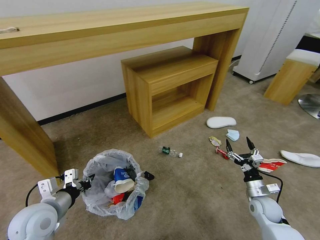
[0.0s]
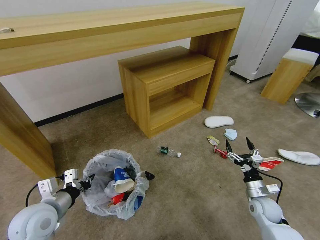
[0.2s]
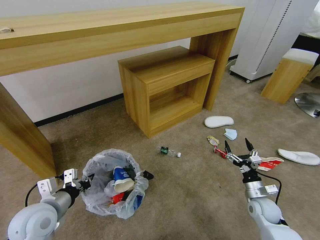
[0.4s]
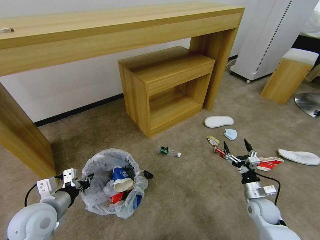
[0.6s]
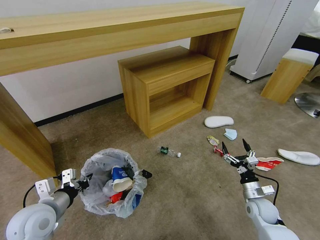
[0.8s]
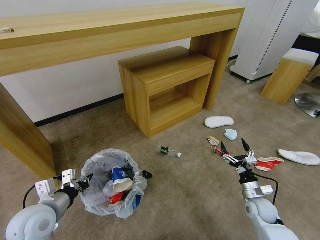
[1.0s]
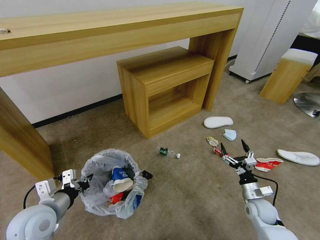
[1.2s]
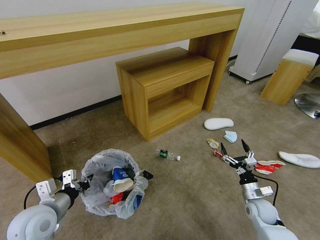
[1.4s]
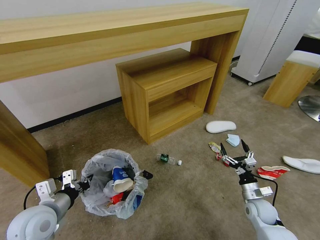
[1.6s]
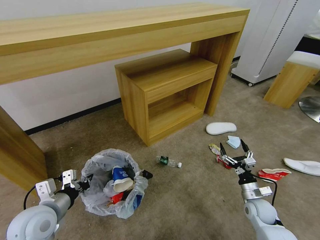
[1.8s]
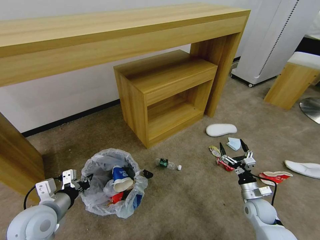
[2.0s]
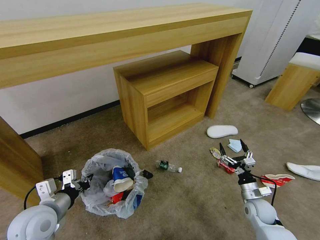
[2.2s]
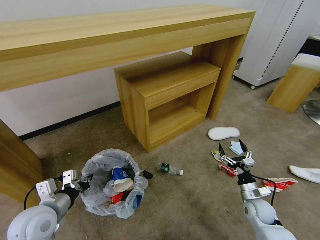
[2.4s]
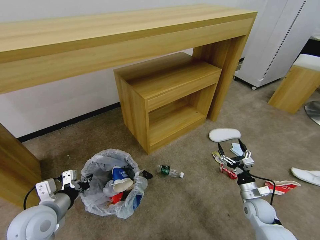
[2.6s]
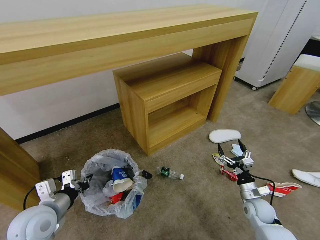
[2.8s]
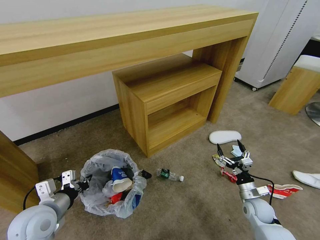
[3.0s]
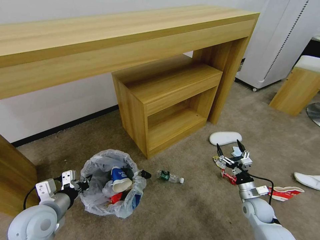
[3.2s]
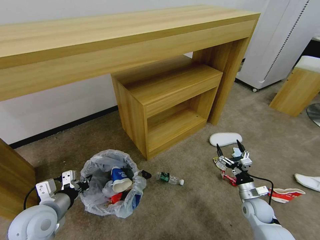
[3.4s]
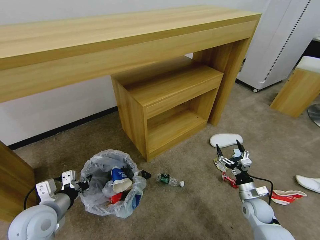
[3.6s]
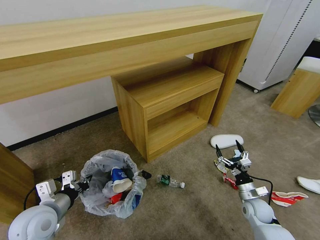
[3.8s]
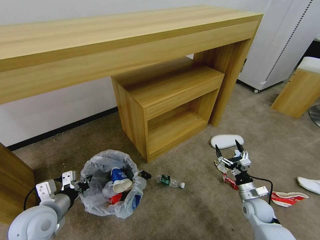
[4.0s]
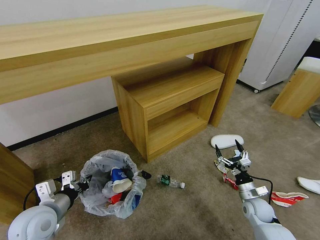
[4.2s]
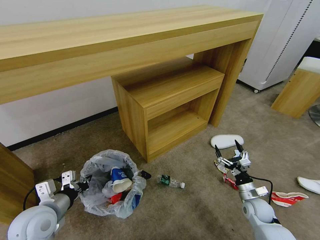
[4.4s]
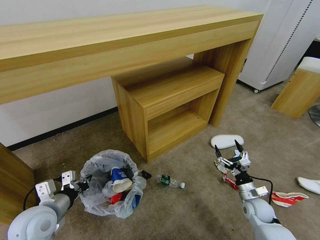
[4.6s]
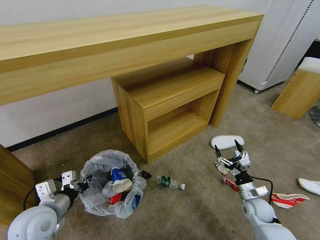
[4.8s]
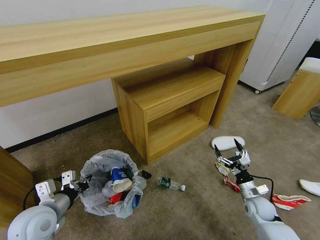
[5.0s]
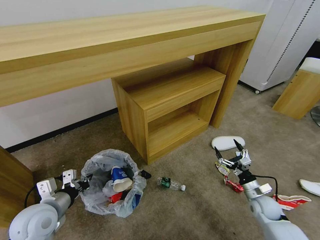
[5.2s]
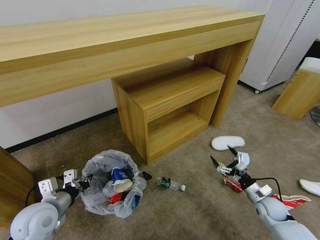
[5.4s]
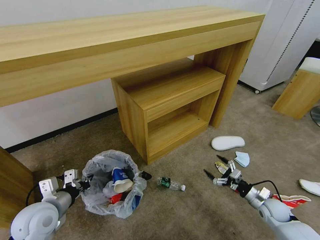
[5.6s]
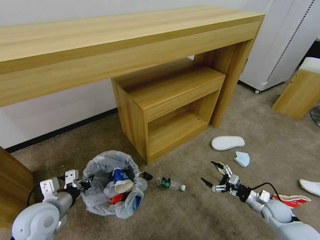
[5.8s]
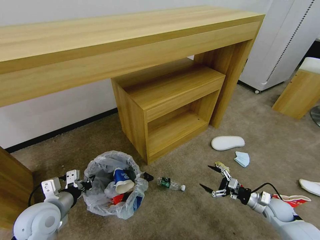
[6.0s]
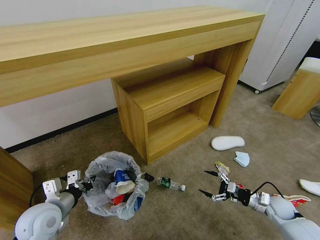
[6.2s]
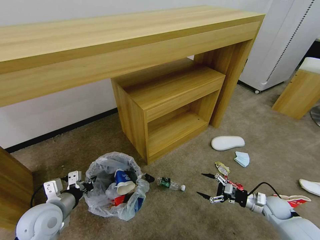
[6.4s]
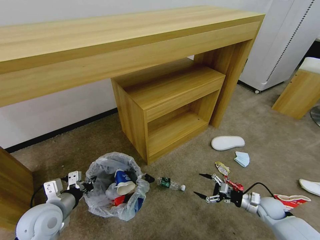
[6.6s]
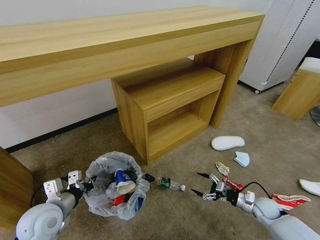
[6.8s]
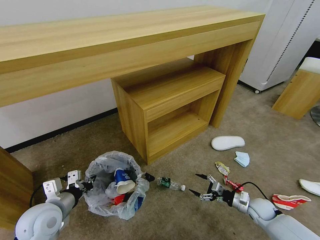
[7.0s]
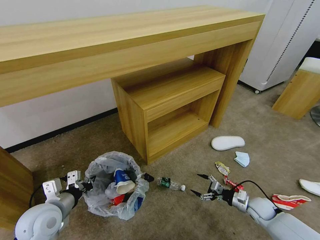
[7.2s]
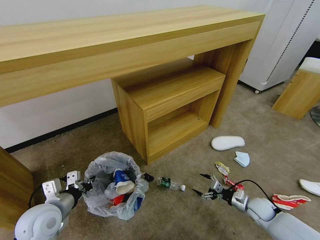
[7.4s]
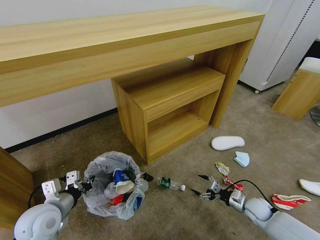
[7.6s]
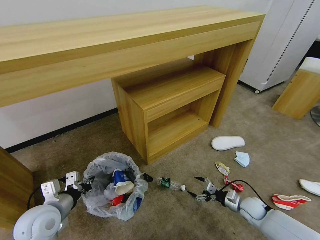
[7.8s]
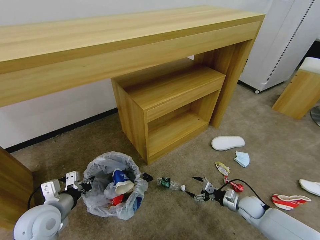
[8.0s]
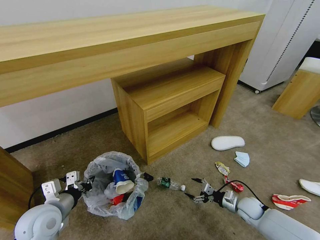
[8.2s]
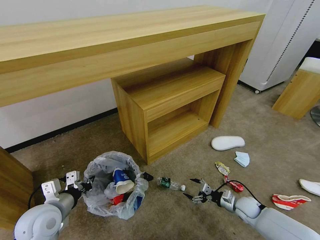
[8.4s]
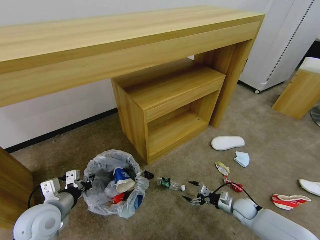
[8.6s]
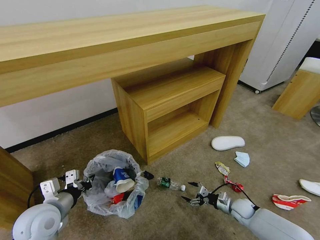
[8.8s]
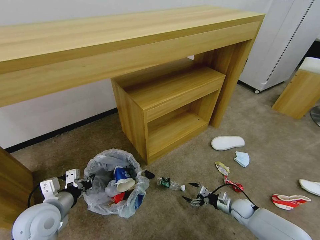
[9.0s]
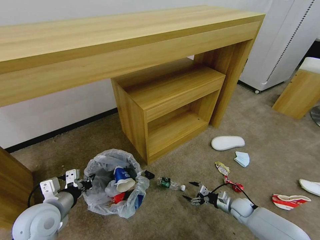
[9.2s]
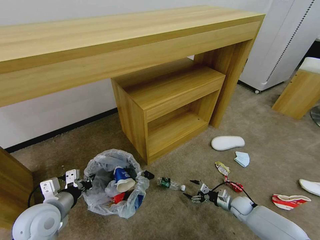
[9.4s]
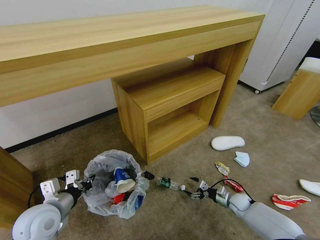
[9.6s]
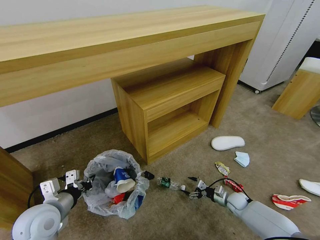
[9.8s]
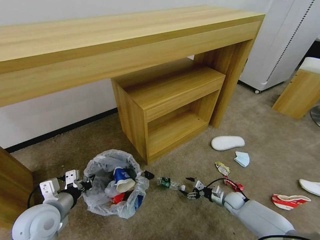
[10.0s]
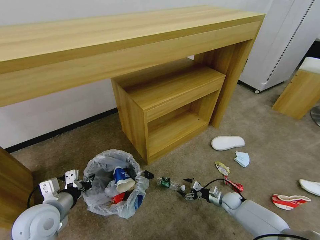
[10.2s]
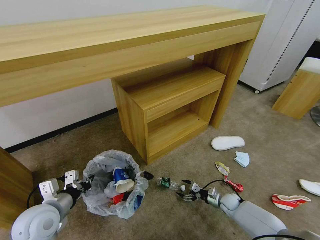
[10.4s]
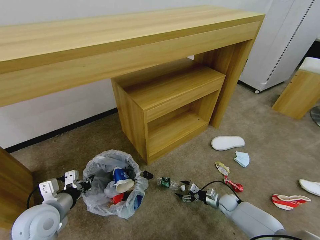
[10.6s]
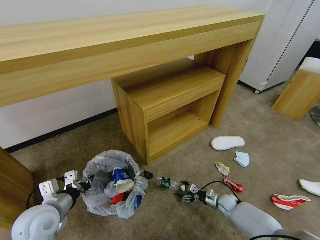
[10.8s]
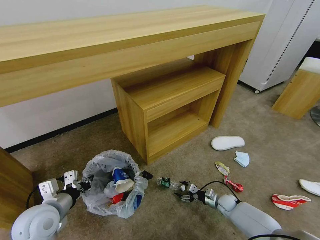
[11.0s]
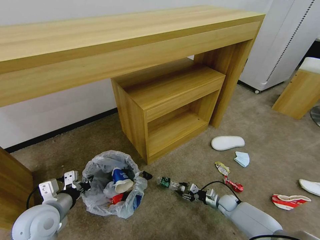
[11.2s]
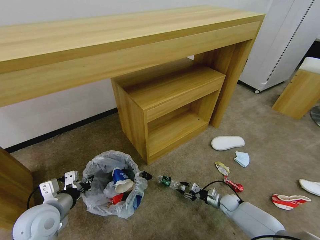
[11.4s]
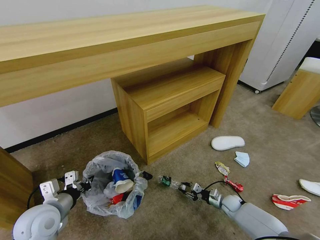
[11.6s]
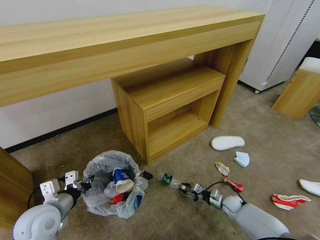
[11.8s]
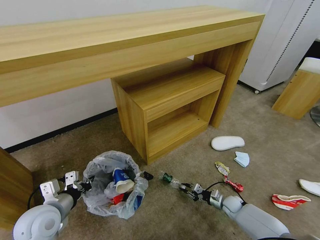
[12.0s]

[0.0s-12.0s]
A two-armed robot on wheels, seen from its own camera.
Task of the whole recording: Pick up the trash bin and place the garbage on the floor into it.
0.0s to 1.6s: There are only small adjustments of the grippers.
3.0s to 4.4s: Both grippers stay put.
4.4s to 6.0s: The right gripper heads to the right, covering about 5 cm.
6.0s to 7.6s: The right gripper shifts approximately 5 cm to the left.
7.6s to 9.0s: The right gripper is displaced downward by approximately 5 cm.
9.0s to 10.4s: The right gripper ends up roughly 5 cm from where it was.
10.4s to 12.0s: The right gripper closes its fingers.

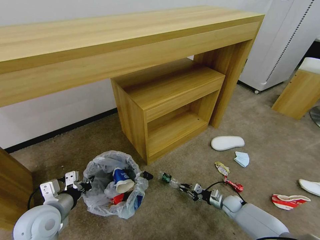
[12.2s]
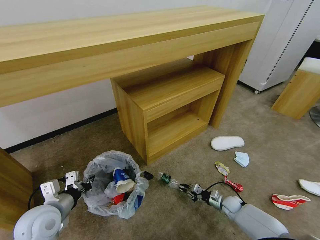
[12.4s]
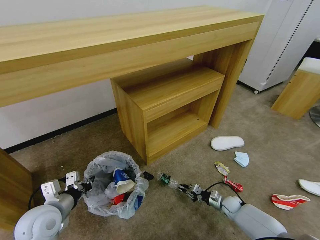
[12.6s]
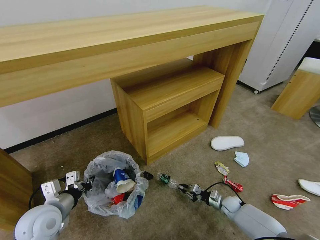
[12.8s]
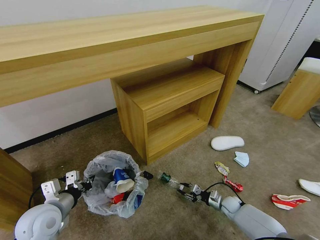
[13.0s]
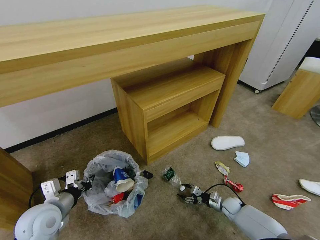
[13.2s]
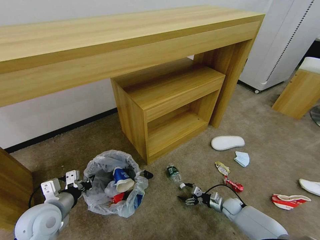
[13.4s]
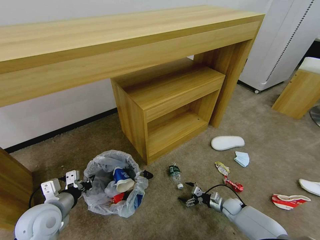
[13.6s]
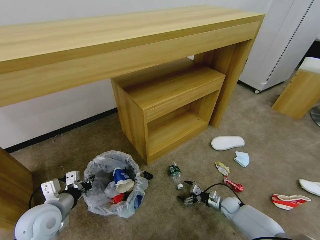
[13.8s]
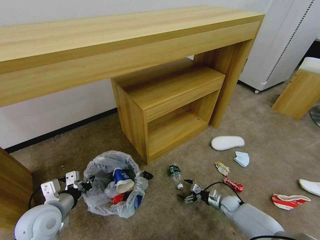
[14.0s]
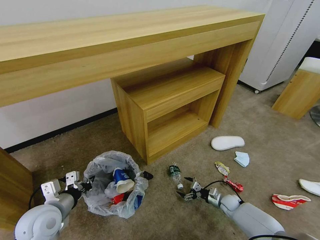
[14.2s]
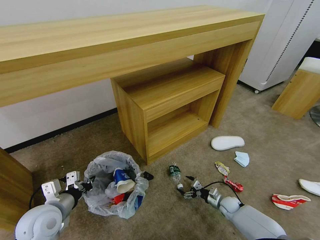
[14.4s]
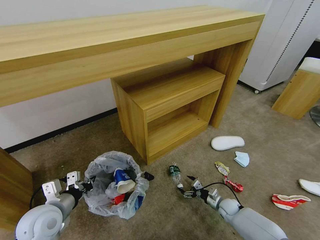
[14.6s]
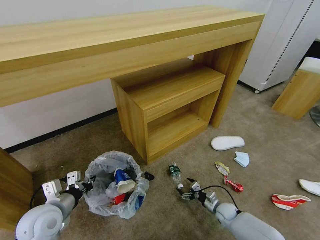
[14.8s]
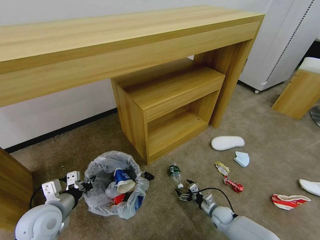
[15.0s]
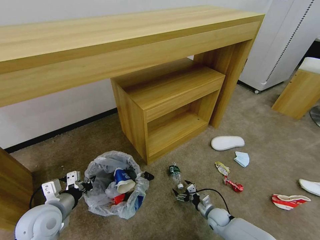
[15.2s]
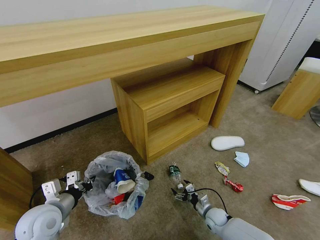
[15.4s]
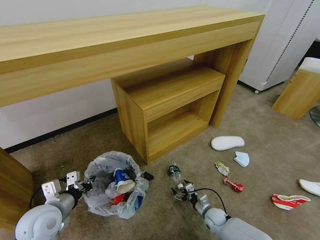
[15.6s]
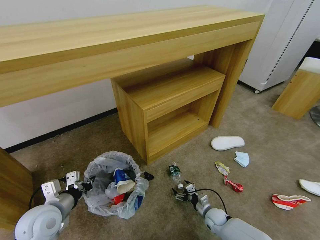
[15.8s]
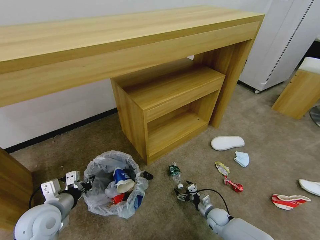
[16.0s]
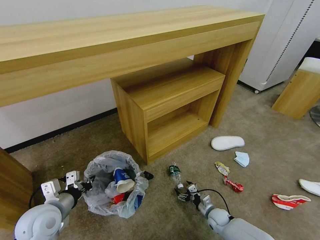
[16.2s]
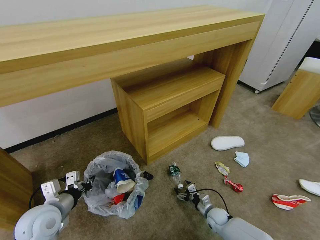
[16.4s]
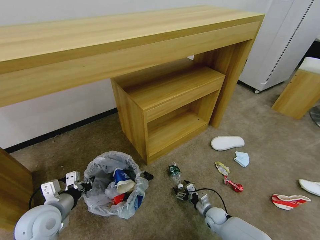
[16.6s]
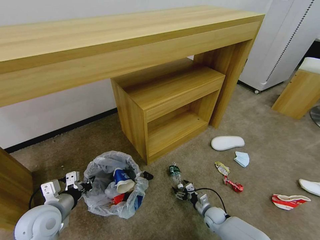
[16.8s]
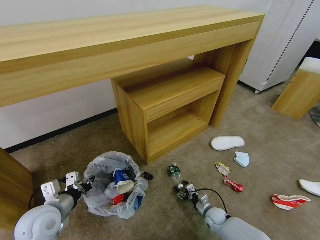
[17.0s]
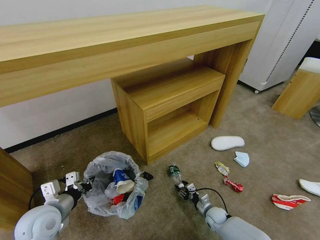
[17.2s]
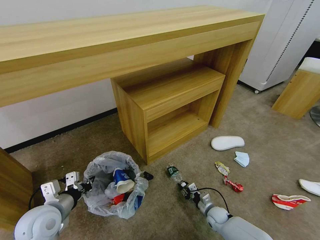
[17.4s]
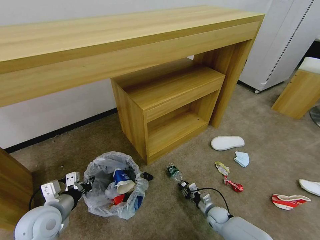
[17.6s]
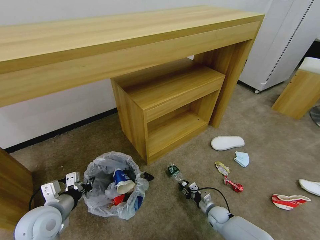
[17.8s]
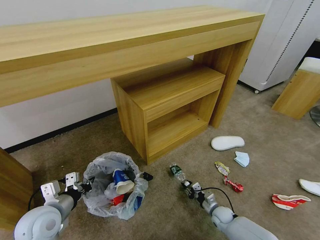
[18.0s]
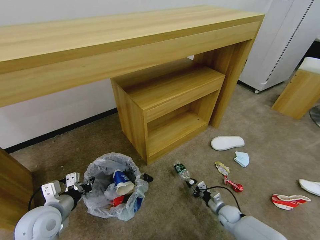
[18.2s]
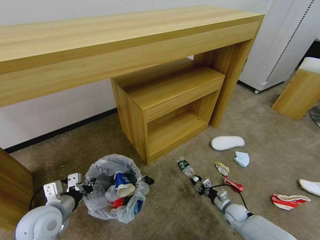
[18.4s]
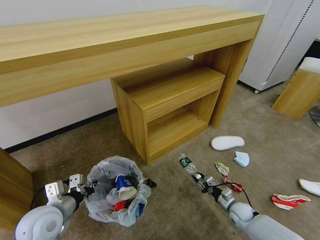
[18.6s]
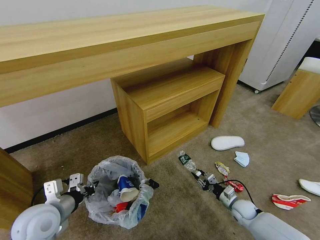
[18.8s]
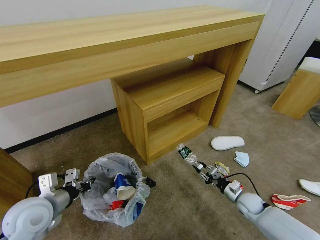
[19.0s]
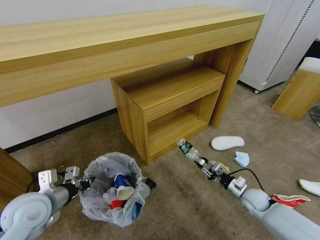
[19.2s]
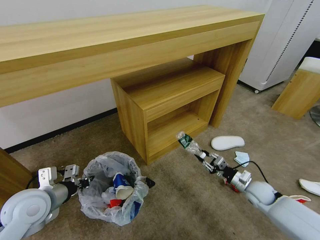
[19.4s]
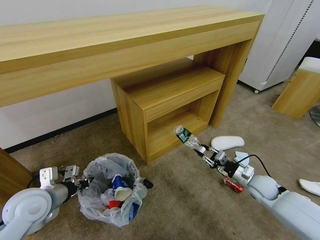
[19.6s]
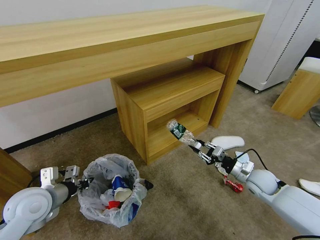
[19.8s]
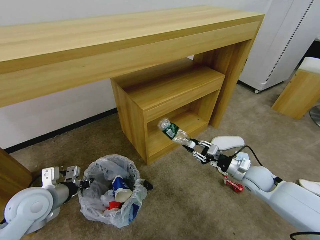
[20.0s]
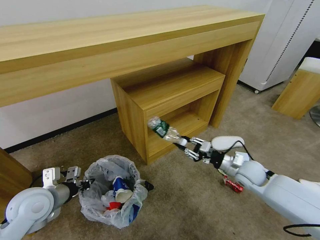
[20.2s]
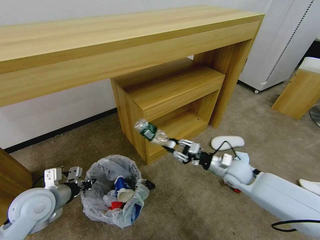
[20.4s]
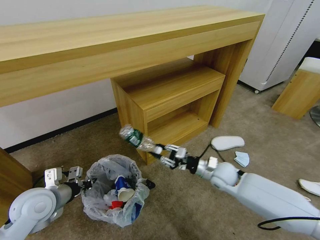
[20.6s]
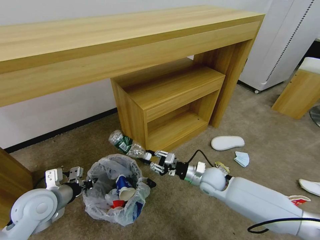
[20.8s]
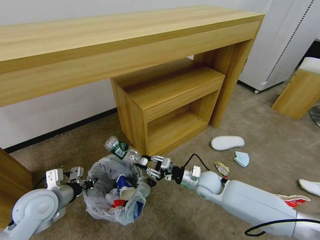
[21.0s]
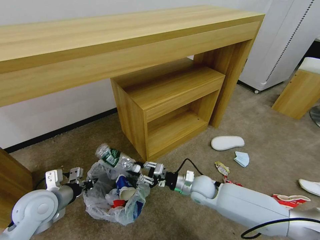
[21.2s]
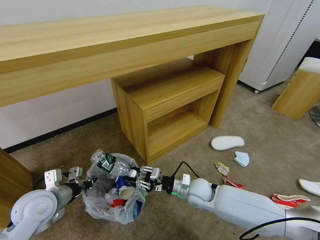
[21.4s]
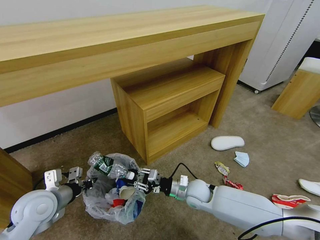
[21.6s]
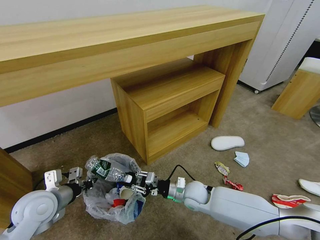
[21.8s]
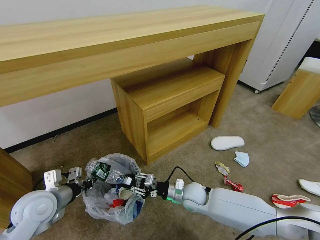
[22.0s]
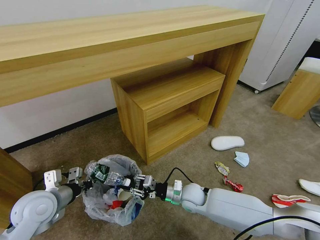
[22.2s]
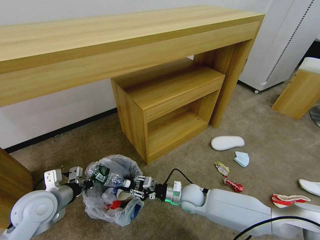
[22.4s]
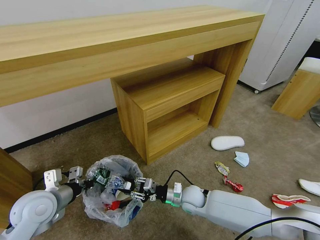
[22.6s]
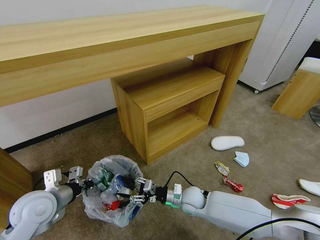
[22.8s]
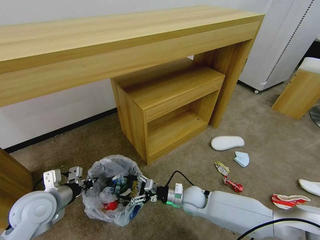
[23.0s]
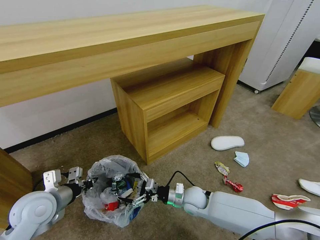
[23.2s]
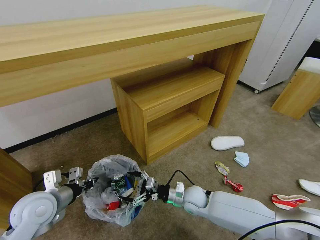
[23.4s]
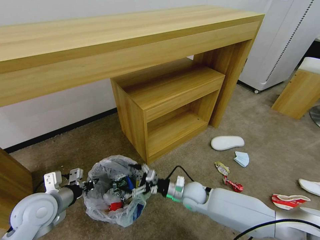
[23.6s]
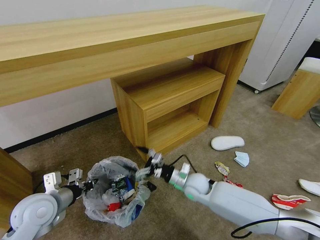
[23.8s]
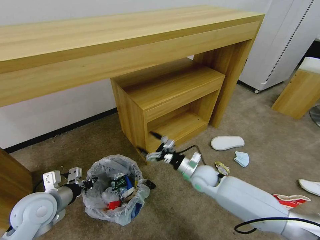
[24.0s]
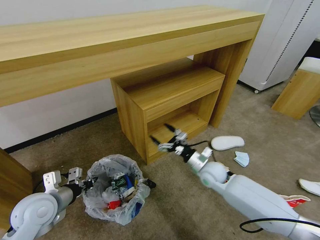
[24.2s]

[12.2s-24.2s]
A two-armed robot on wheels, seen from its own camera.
Task of the whole recording: Pick up the trash bin and place the garbage on the floor into it.
12.2s to 13.8s: The right gripper opens up.
13.8s to 15.2s: The right gripper goes some 10 cm to the left and backward.
15.2s to 16.6s: Both grippers stay about where they are.
16.6s to 18.2s: The right gripper is displaced to the right by about 5 cm, and closes its fingers.
18.2s to 19.8s: The right gripper moves upward, some 20 cm, while the left gripper shifts roughly 5 cm upward.
19.8s to 21.2s: The right gripper goes approximately 20 cm to the left.
21.2s to 22.6s: The right gripper changes place by roughly 5 cm.
22.6s to 24.2s: The right gripper travels to the right, upward and forward by about 15 cm, and opens.
